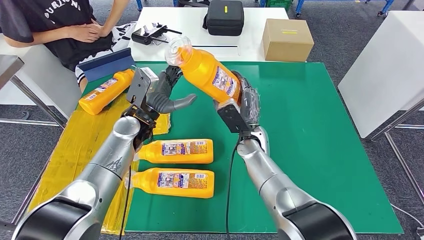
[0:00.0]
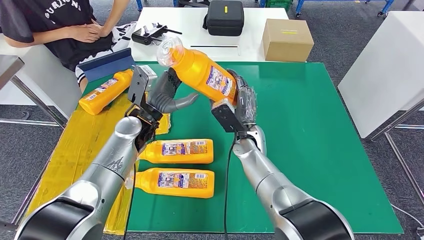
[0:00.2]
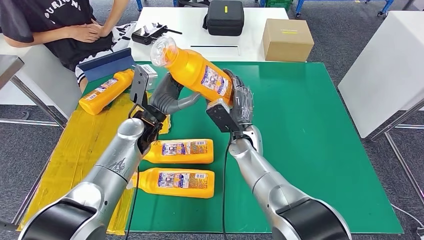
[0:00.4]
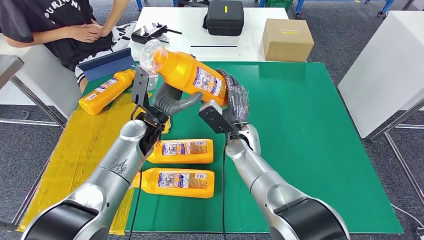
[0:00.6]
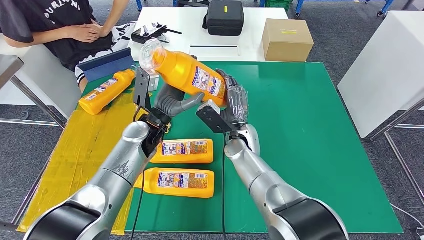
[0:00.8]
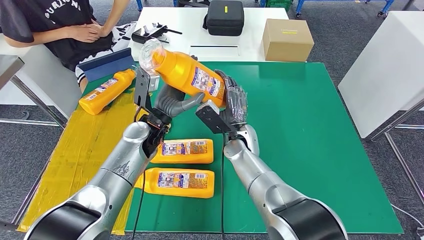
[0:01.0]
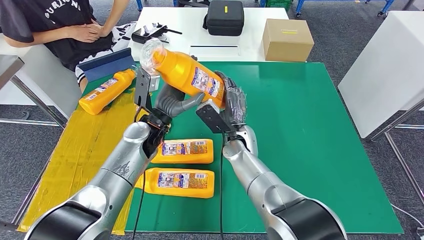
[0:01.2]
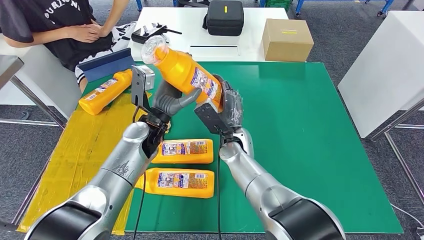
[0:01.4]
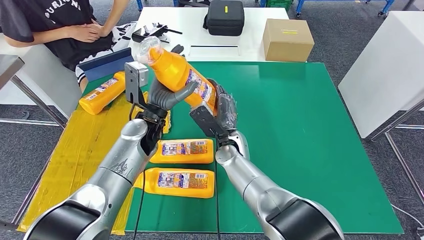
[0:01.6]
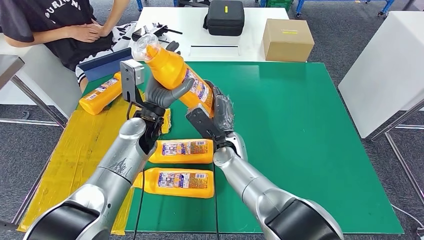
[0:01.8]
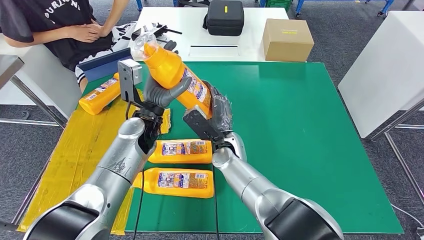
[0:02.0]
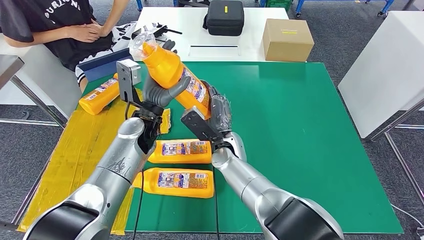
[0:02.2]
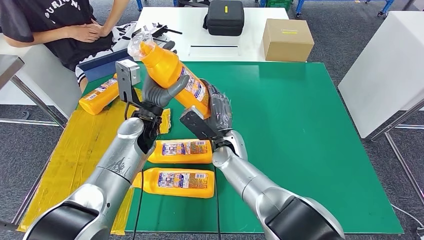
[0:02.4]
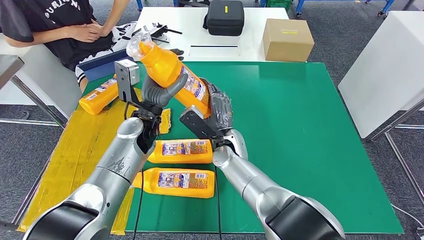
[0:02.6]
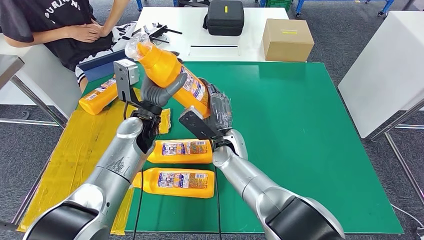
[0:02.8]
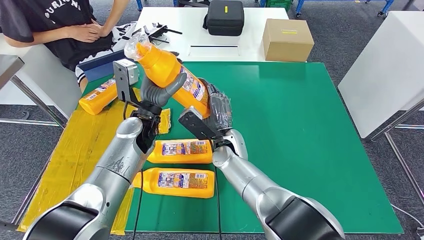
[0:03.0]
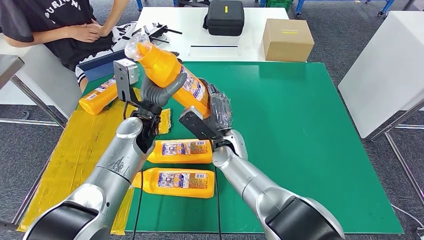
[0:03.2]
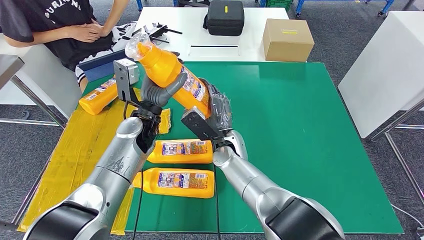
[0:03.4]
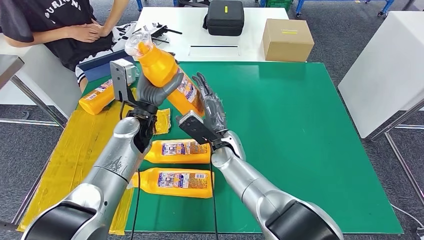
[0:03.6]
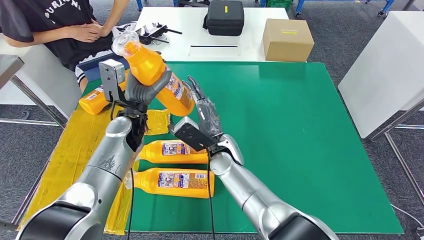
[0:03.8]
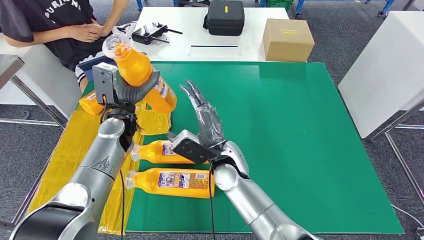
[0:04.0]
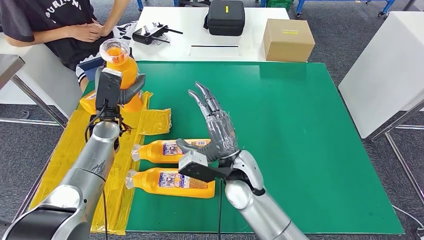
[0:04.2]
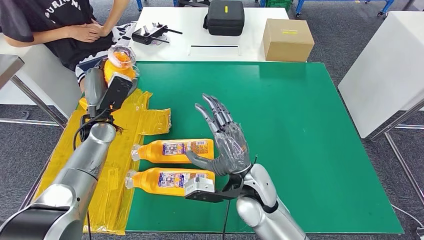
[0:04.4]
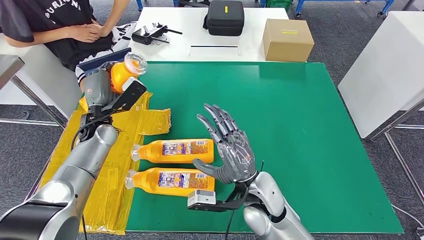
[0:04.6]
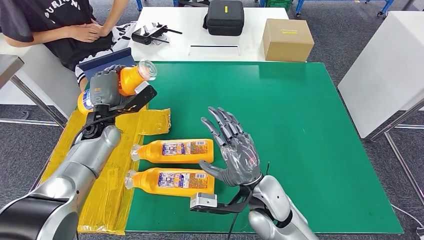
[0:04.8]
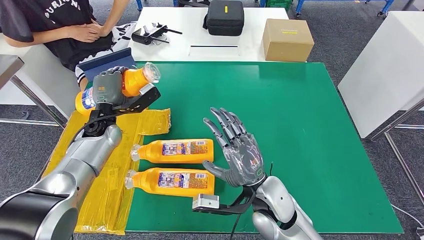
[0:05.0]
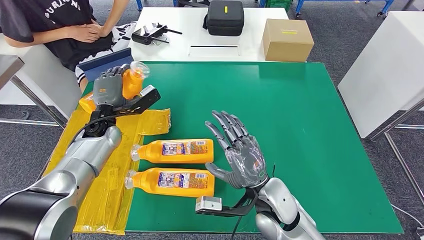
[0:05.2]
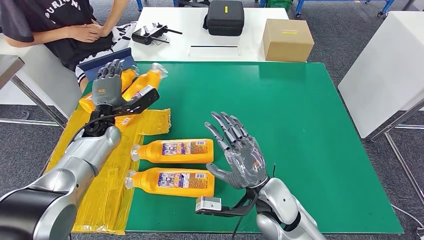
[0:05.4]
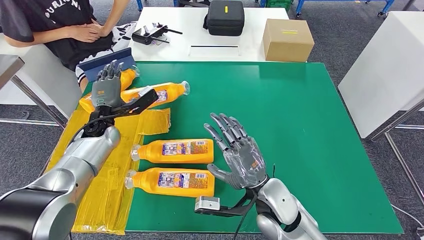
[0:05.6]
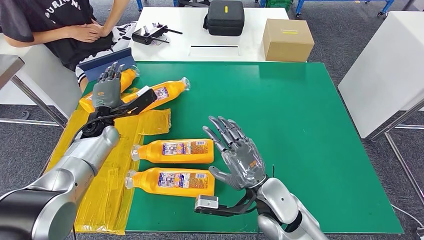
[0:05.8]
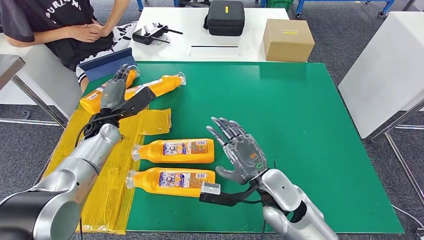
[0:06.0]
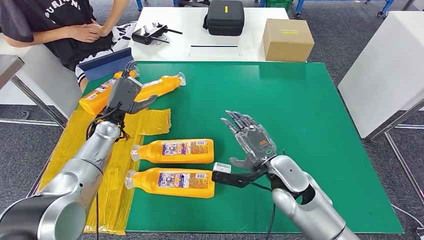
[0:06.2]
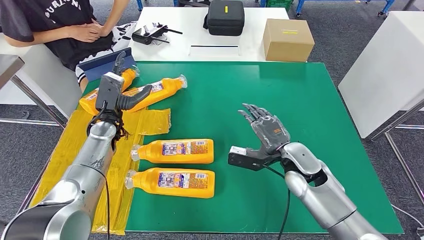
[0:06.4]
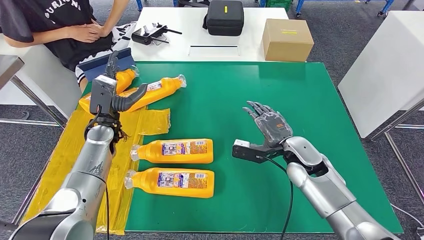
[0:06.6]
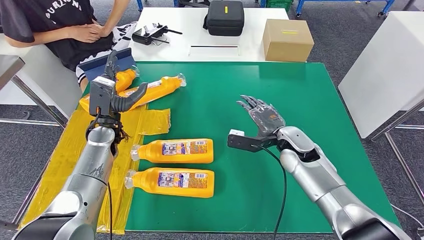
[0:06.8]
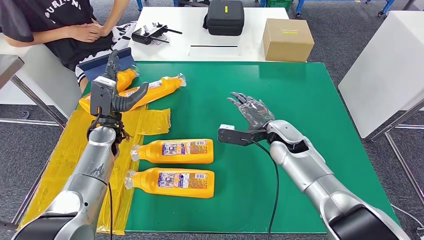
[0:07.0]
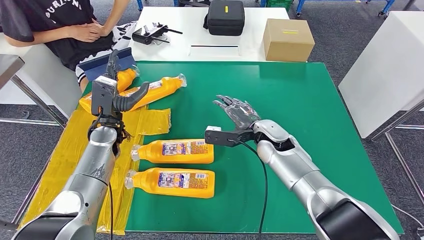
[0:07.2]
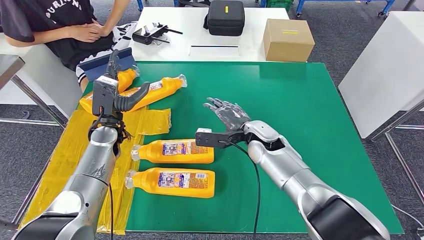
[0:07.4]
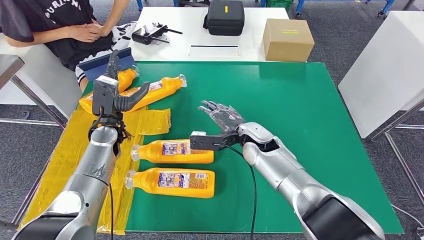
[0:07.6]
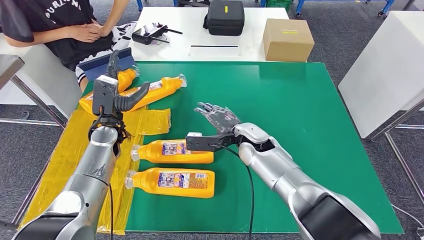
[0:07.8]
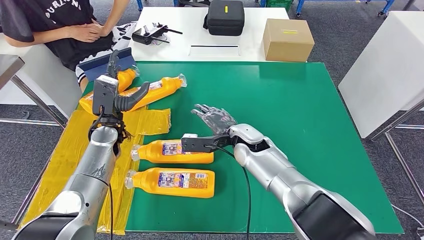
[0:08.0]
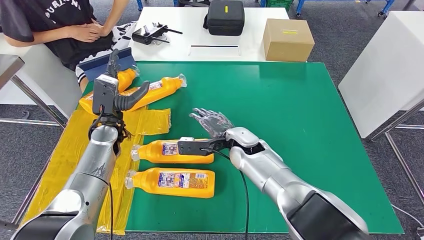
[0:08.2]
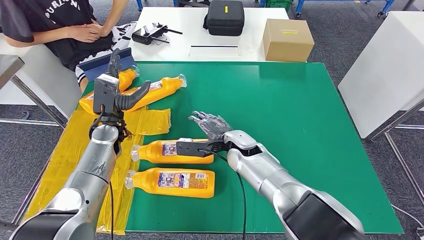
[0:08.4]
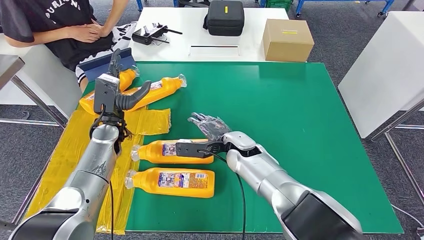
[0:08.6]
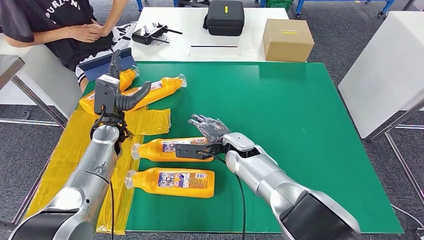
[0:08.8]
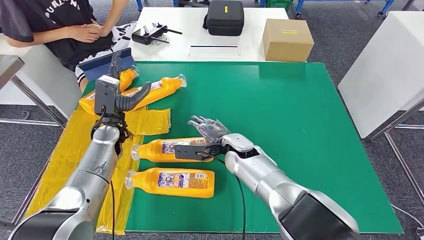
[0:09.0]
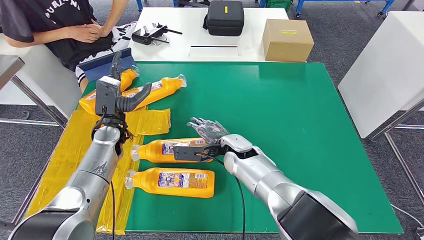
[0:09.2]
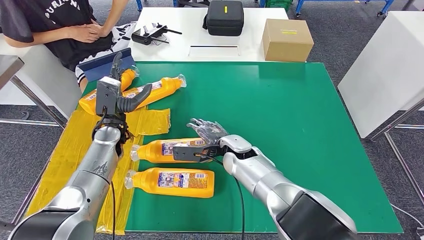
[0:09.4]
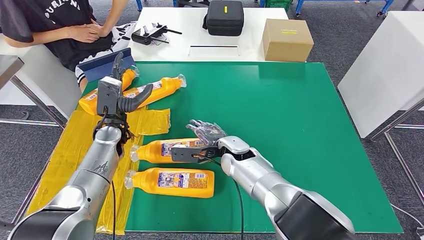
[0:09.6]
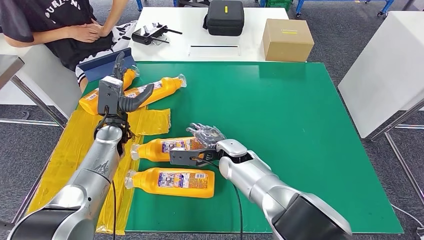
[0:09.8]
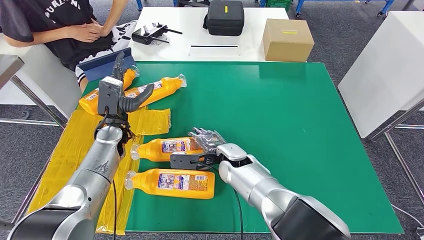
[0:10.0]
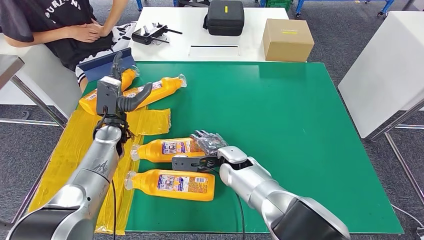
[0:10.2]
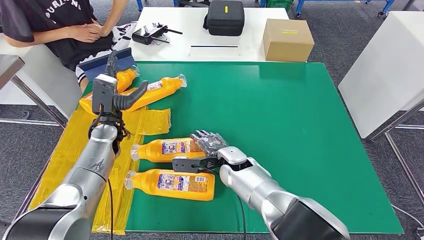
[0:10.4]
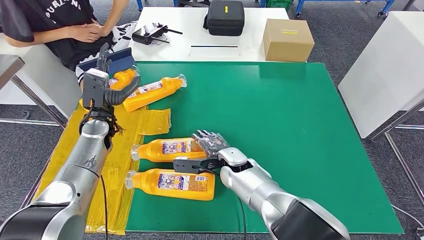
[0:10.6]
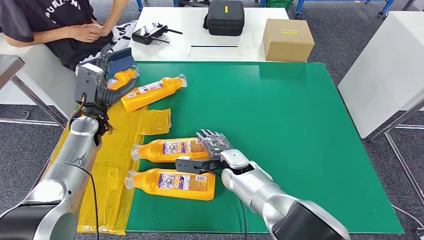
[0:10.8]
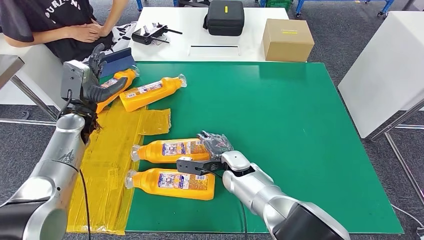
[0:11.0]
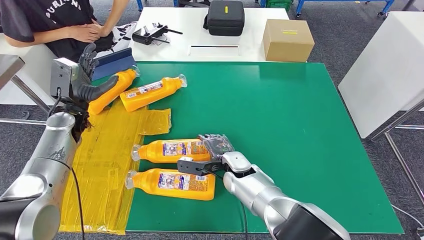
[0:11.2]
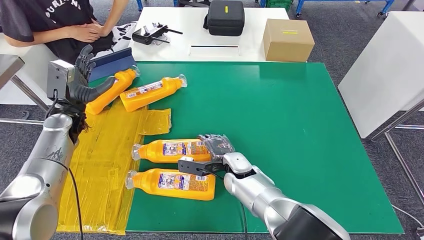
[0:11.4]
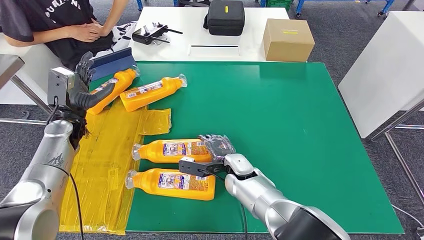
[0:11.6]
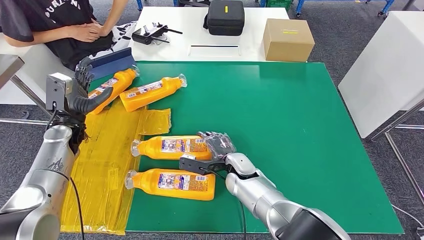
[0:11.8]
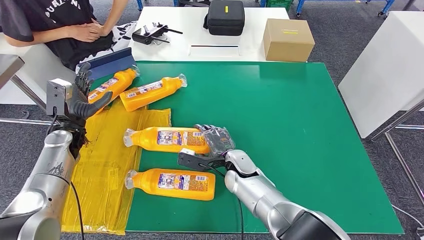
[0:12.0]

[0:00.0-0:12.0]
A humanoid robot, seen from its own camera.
Step, 0:00.0 to 0:06.6: Flip the fast-moving consumer goods bottle to the front side.
0:00.0 to 0:01.6: The right hand is displaced to the left by some 5 cm.
0:01.6 to 0:03.0: The hands stay close to where they were, moving slightly.
0:04.4 to 0:06.0: The right hand moves to the right, approximately 5 cm.
0:06.0 to 0:07.6: The right hand shifts about 15 cm forward.
0:07.6 to 0:09.0: The right hand travels to the left by approximately 5 cm.
0:09.0 to 0:10.4: There are only small adjustments of the hands.
0:10.4 to 0:12.0: The left hand heads to the left, covering approximately 10 cm.

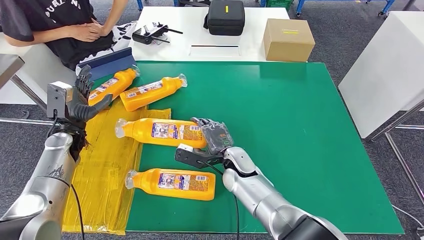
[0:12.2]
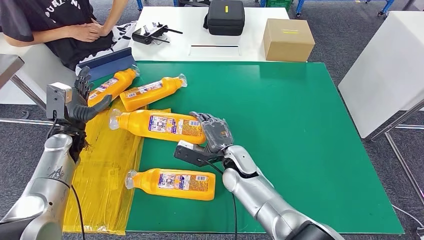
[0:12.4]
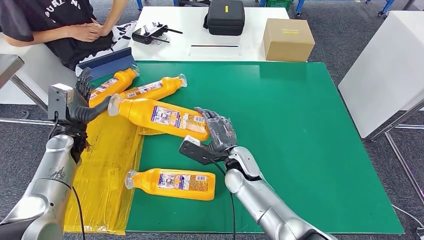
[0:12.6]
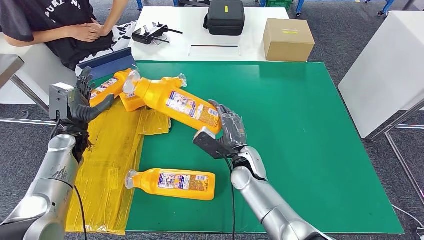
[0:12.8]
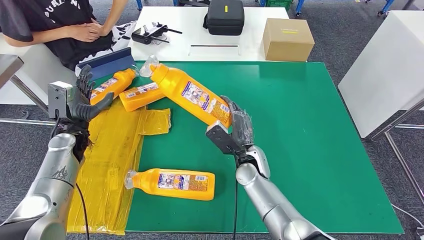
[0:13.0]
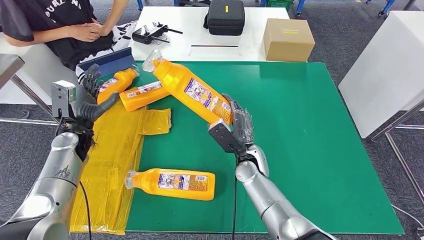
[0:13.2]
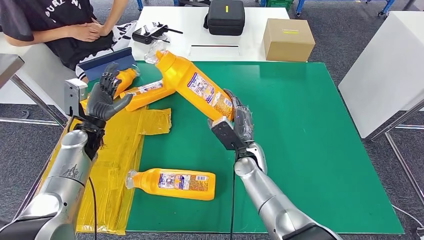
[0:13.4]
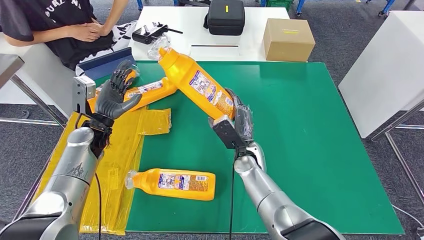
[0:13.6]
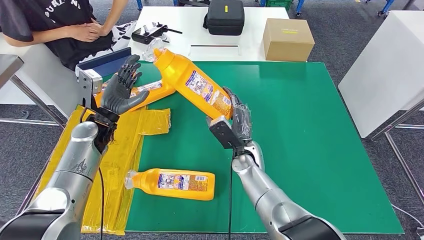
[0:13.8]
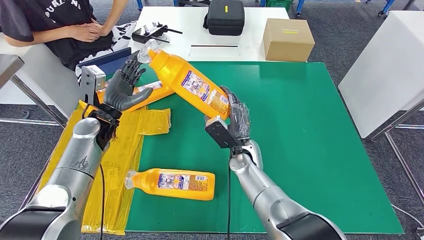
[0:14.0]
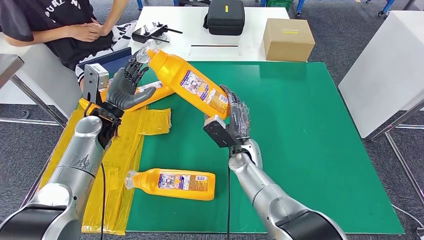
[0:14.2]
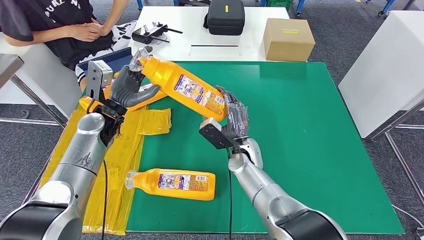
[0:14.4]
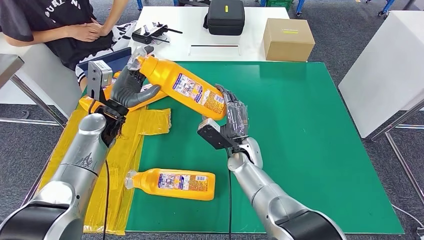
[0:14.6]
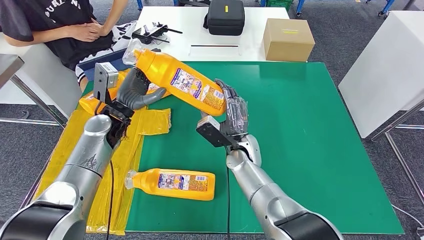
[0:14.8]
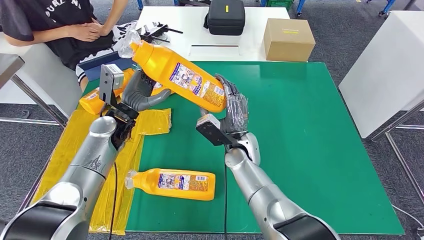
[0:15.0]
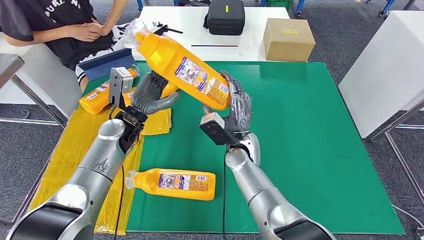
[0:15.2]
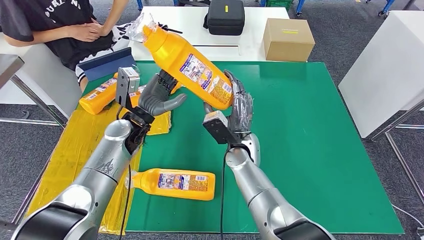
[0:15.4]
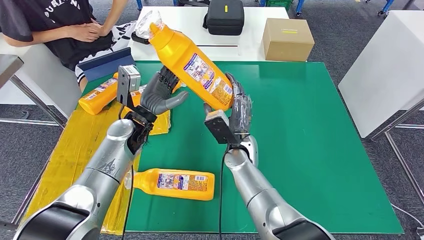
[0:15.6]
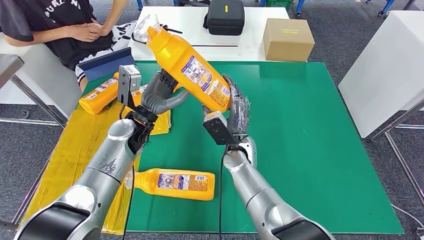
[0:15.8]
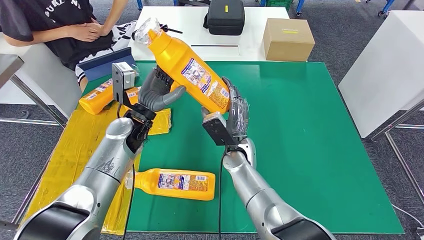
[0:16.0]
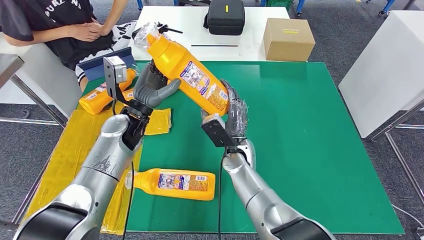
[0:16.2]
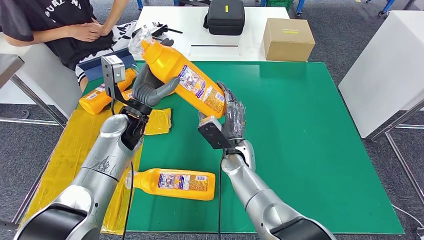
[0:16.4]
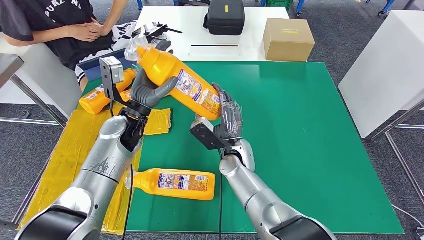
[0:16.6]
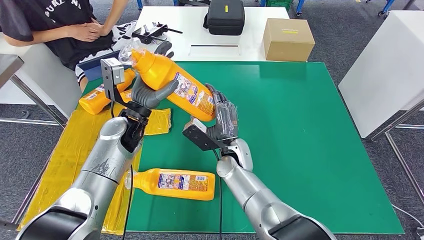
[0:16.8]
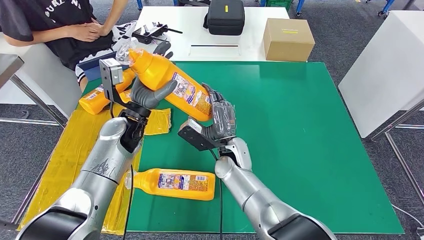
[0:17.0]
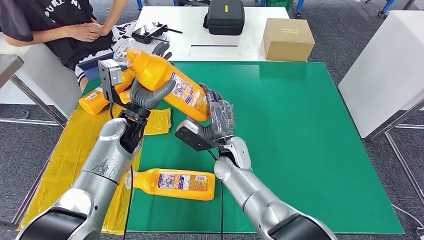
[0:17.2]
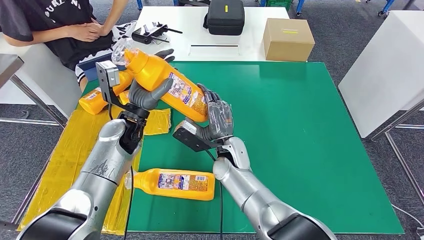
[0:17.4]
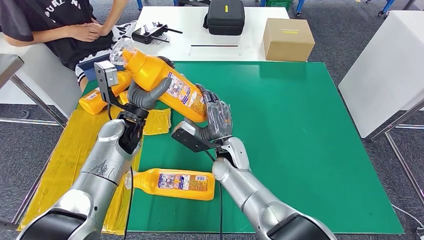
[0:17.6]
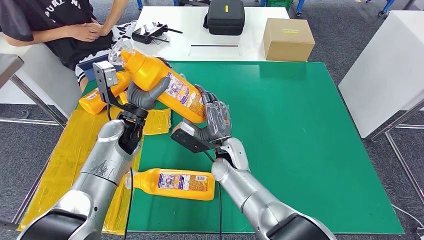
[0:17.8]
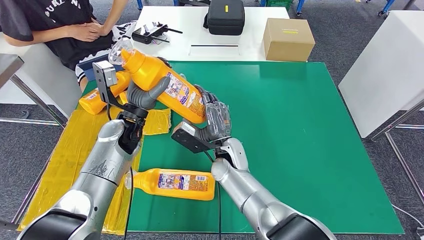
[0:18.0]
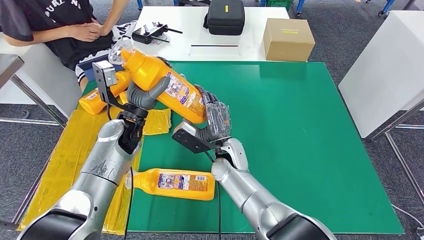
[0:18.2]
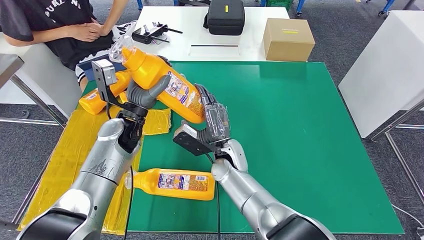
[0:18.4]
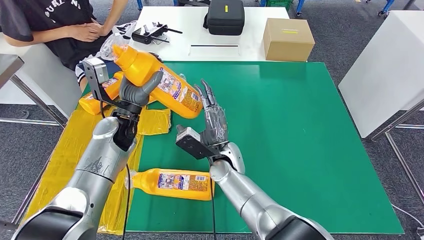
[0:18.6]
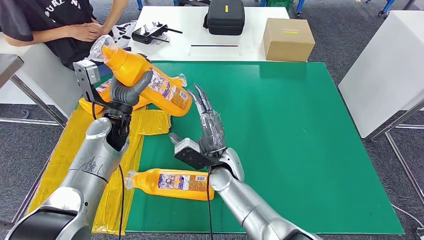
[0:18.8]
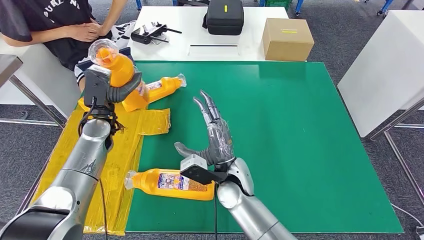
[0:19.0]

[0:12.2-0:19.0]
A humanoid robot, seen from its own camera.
Step, 0:12.2 to 0:15.2: Pick up the fast-moving consumer goods bottle from the table.
0:13.6 to 0:15.0: The left hand heads to the right, covering approximately 5 cm.
0:15.0 to 0:16.2: The left hand moves approximately 5 cm.
